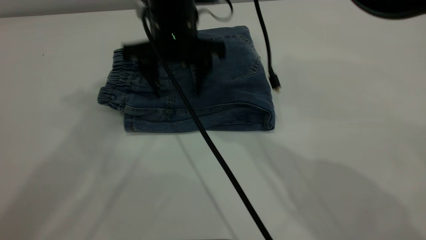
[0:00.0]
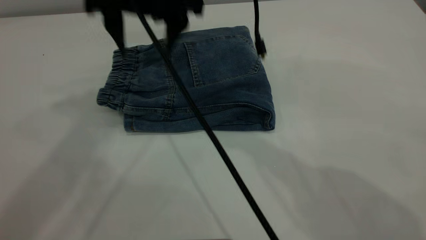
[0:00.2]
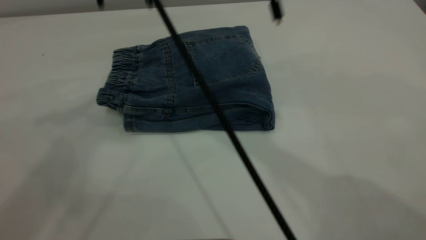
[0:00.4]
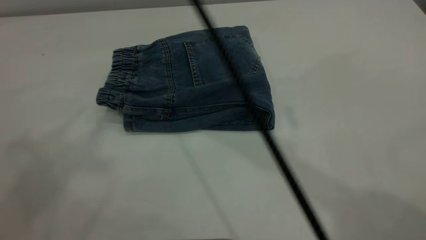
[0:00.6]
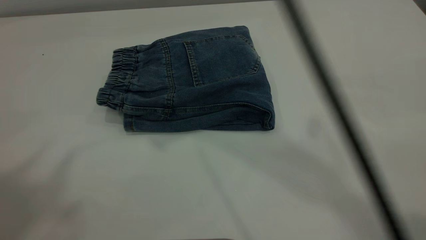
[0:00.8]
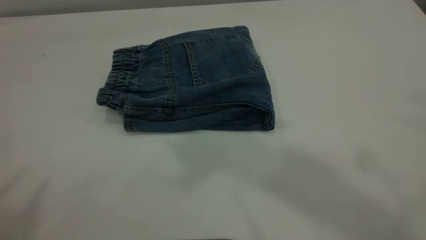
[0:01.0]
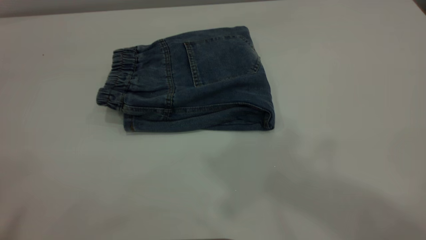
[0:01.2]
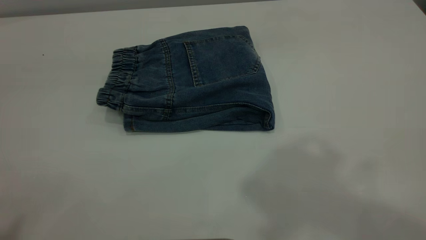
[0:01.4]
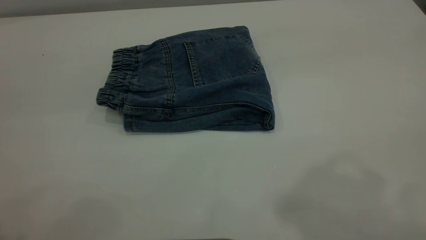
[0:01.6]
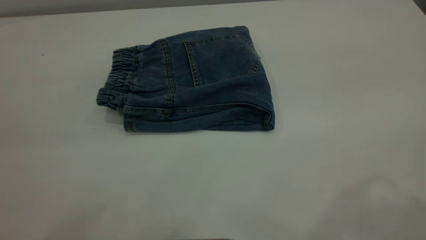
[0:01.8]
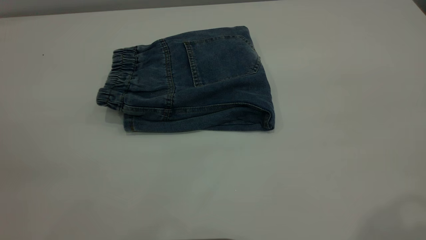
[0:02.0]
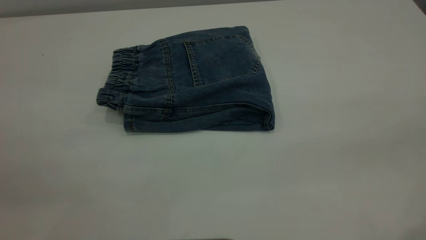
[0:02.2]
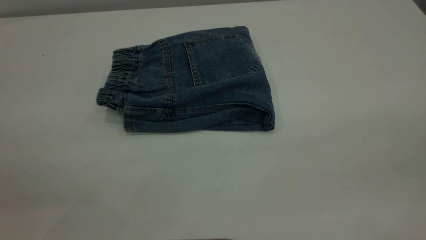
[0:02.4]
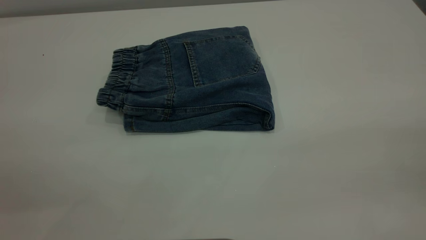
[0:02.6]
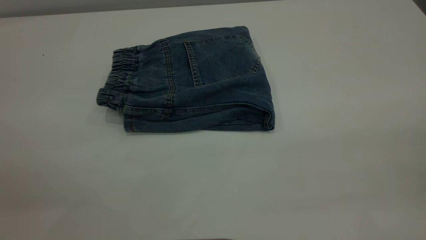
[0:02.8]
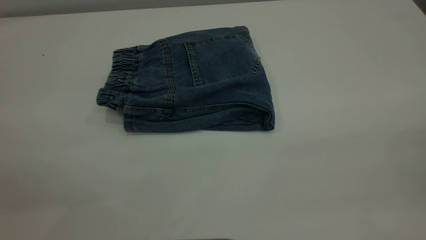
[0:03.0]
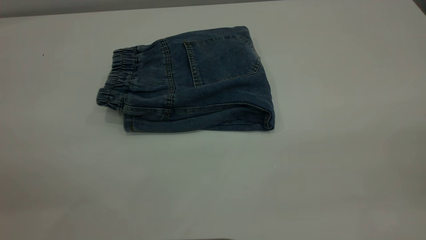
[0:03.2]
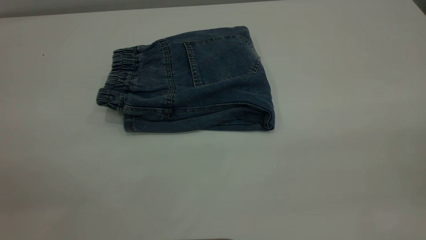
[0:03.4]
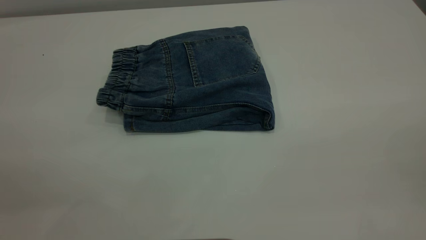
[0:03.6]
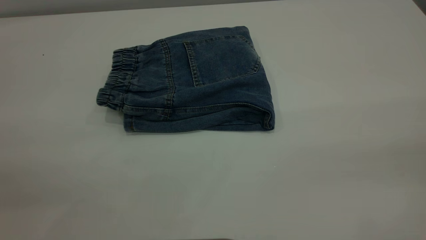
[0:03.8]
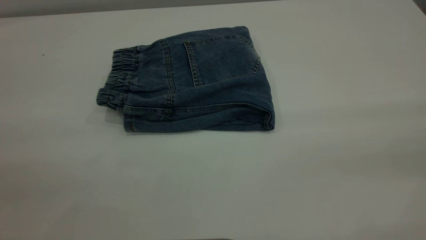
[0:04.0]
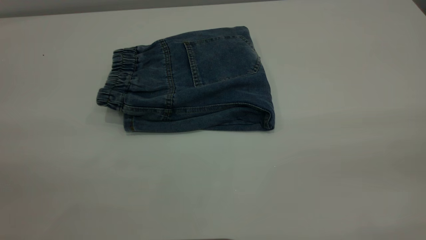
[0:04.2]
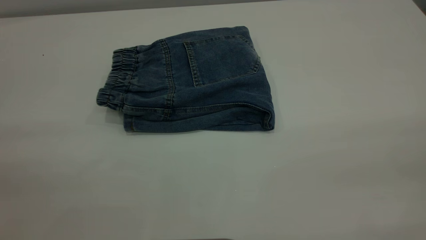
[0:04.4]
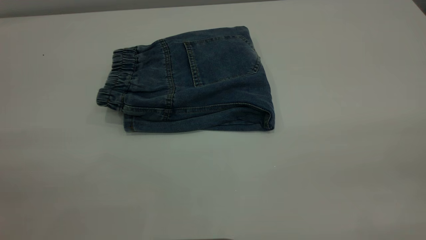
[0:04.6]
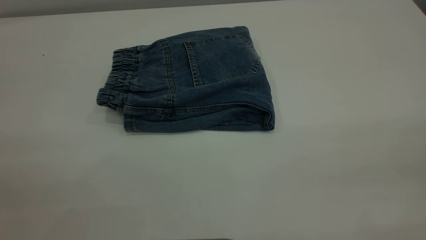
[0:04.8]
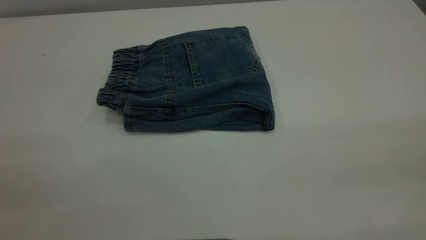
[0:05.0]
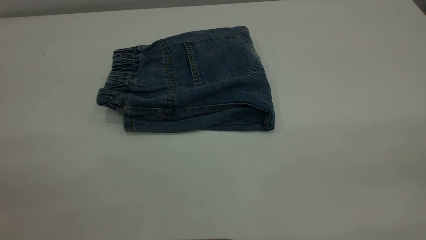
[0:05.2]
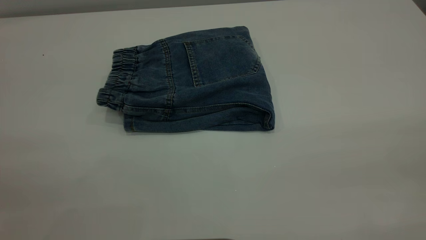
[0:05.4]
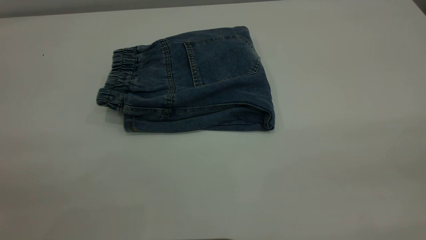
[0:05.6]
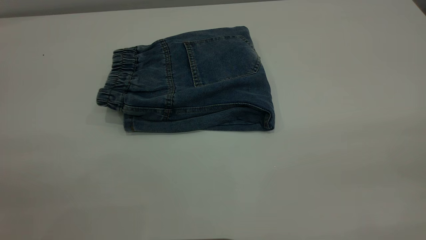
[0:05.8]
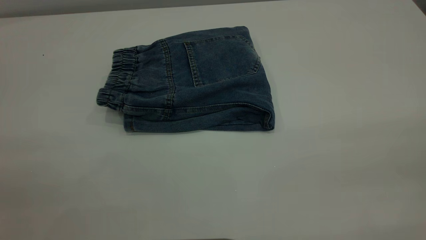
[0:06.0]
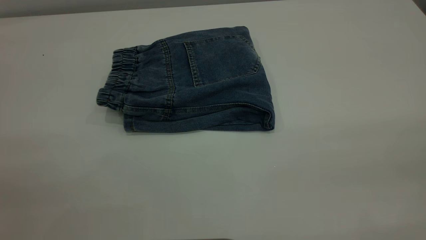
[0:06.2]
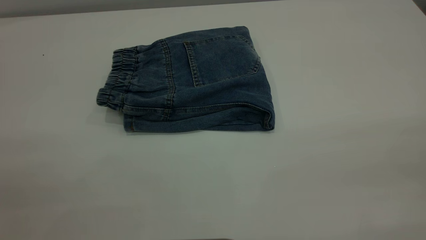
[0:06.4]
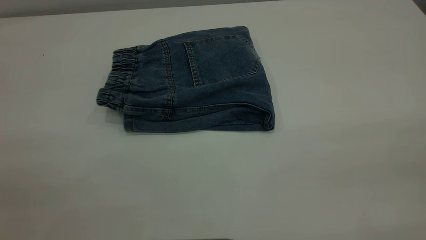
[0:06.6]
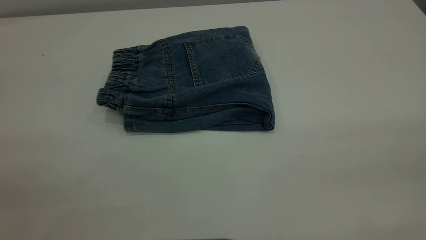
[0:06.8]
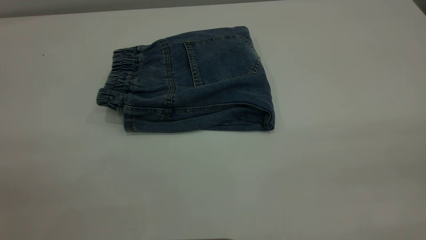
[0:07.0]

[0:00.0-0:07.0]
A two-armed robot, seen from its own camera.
0:00.0 to 0:01.4: The right gripper goes approximately 40 cm upward, backward and to the right, while the left gripper heads backward and to the left, covering about 25 cm.
0:05.6 to 0:07.0: The two grippers keep their place.
